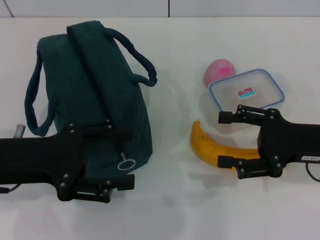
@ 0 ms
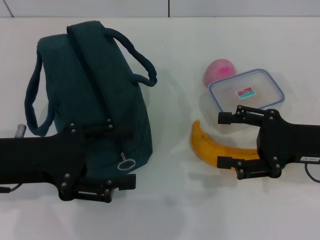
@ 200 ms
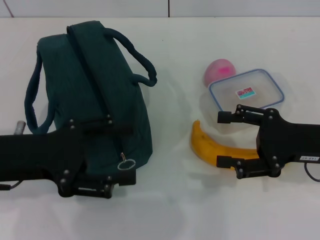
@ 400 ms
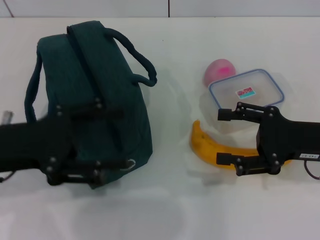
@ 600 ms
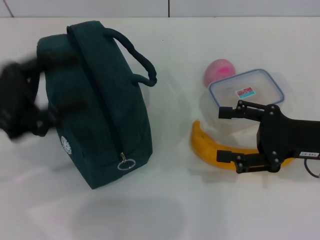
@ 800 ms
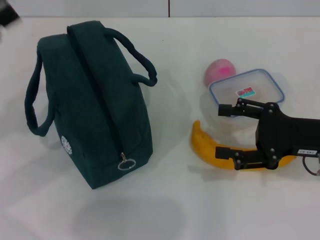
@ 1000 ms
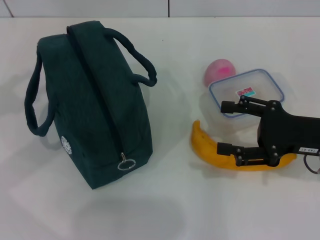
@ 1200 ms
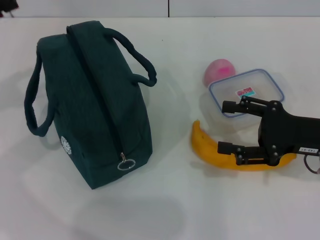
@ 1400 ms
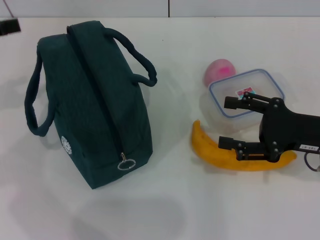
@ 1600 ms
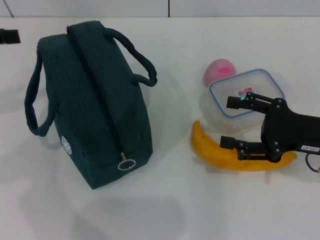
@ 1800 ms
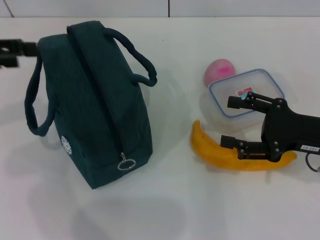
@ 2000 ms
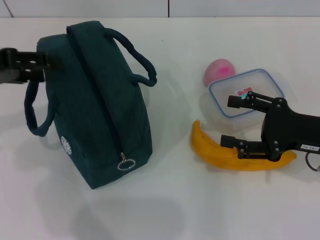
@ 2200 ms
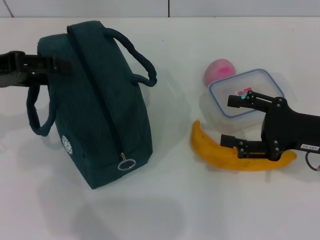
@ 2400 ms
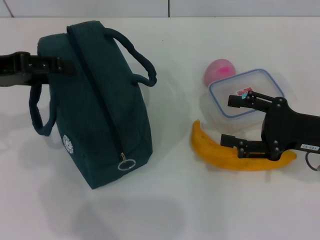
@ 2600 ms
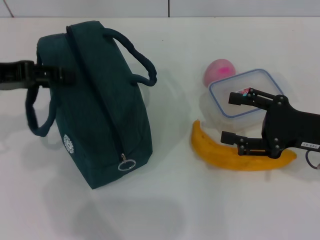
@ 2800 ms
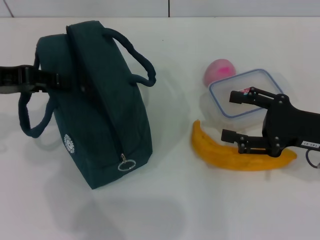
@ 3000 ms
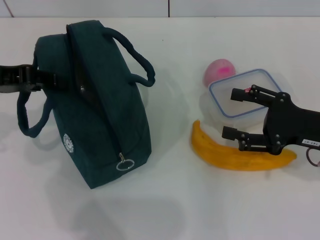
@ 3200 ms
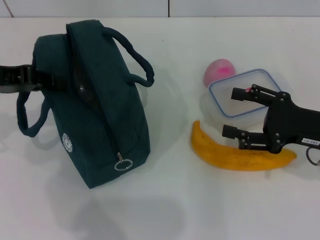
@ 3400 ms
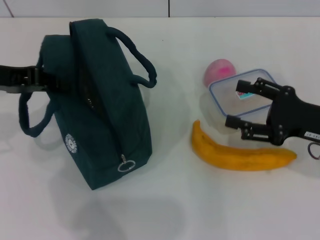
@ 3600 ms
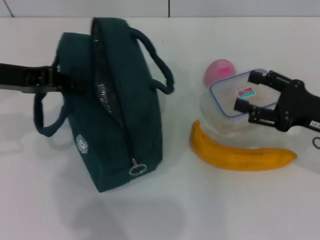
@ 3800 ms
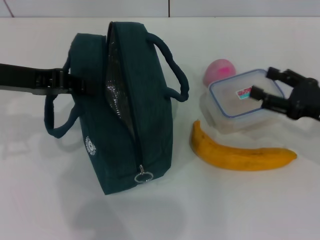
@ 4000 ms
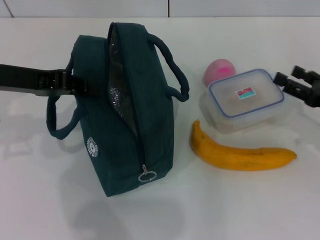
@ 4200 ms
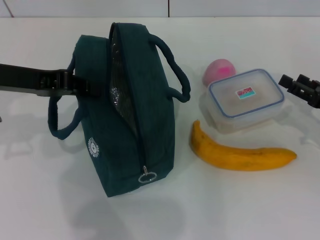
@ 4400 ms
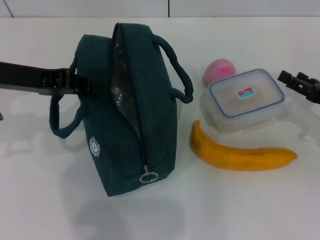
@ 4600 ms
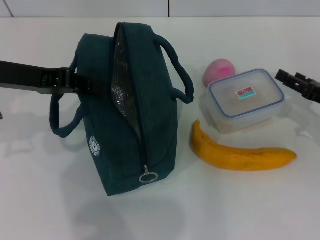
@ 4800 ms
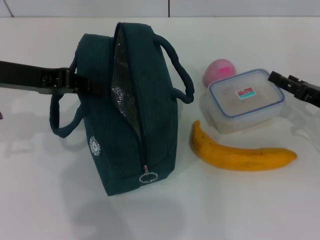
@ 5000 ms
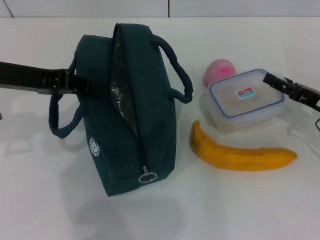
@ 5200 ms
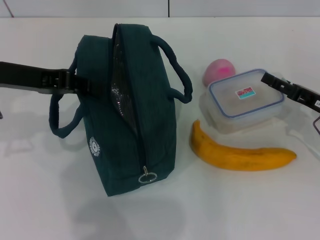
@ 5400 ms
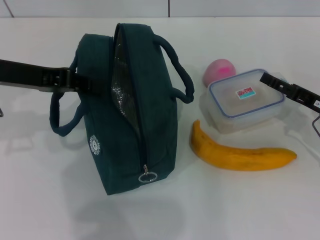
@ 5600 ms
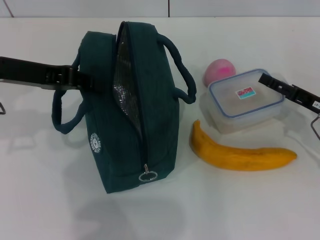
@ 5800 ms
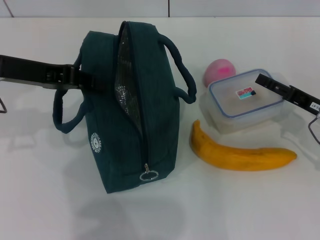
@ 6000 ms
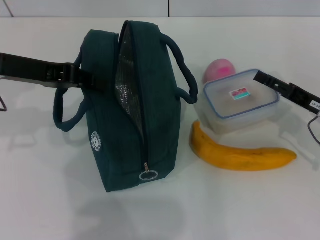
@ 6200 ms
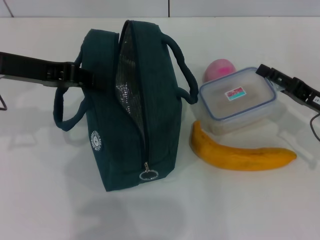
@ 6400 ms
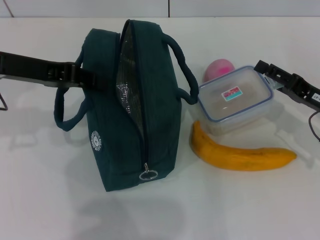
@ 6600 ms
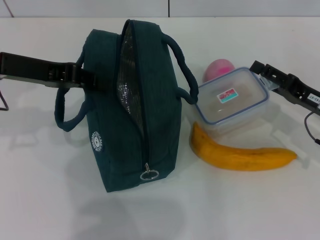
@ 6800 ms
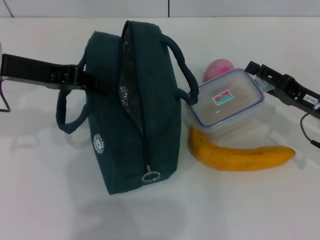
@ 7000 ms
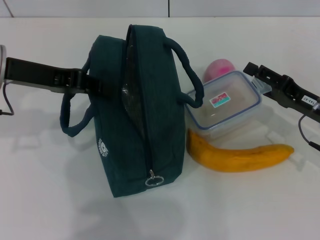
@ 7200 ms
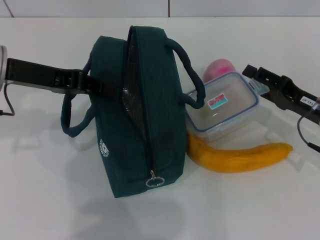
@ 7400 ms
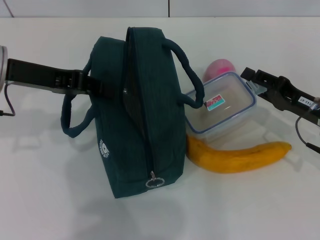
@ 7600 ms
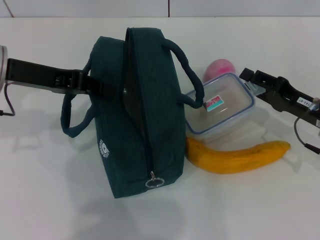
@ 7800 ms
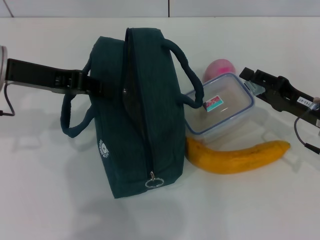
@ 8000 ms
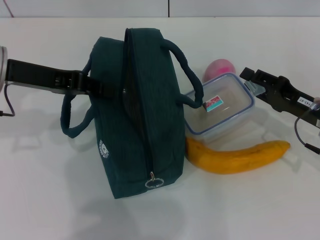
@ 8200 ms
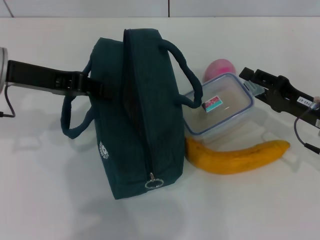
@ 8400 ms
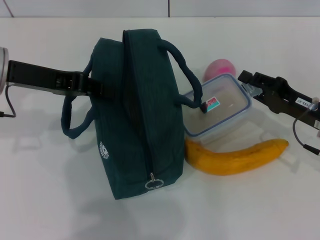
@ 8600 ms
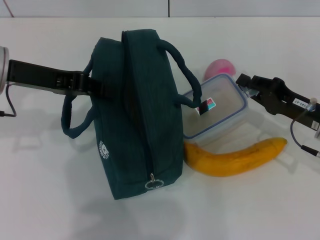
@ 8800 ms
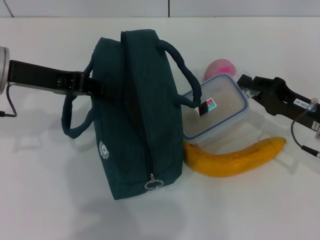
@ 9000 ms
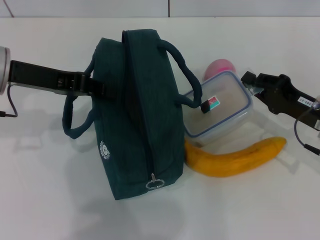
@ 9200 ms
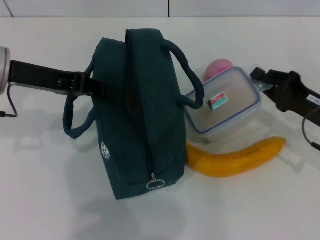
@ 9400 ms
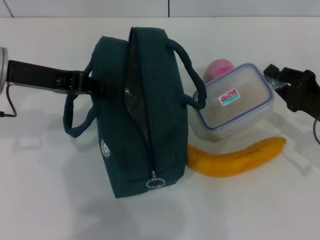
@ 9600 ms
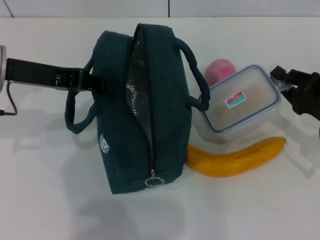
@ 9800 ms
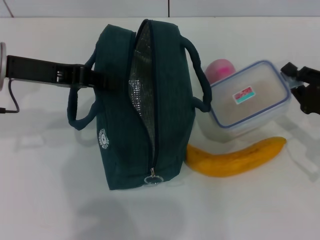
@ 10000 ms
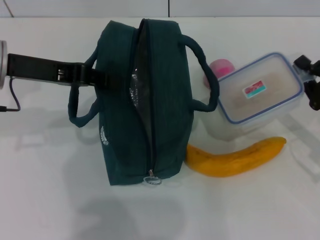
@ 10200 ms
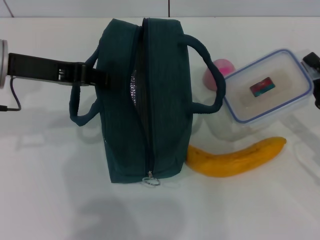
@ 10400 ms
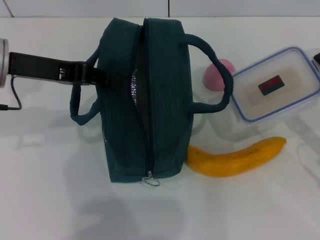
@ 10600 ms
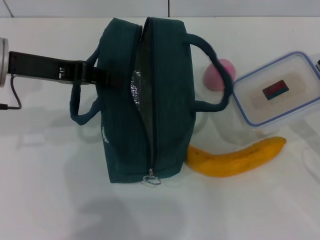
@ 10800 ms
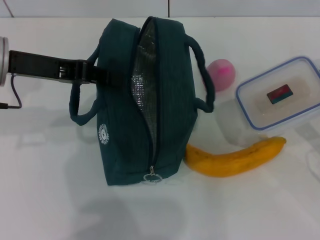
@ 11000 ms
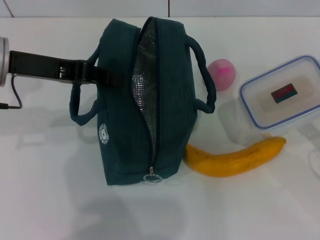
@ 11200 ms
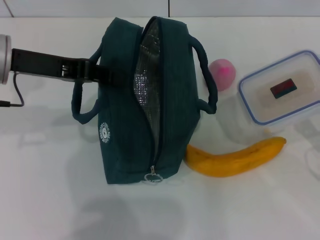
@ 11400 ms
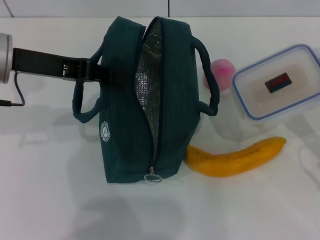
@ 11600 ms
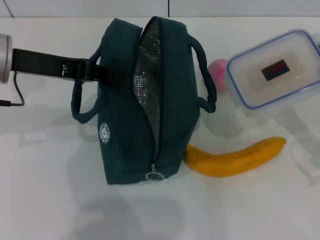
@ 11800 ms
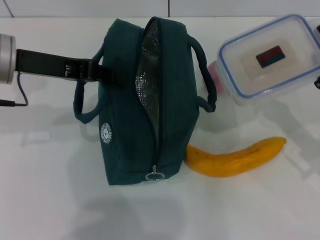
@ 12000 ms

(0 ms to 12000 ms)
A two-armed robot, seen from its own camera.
Step, 0 ms - 4400 ms: Hold the lunch bag with your left hand.
Step, 4600 ms - 9000 ms: Pick up the lunch box with your right hand.
0 ms - 1600 ms: The left gripper is displaced to the left, upward and forward by some 15 cm.
1600 ms - 3000 ms: The left gripper heads to the right, covering about 5 cm.
3000 ms - 4400 ms: The left gripper closes; the right gripper is displaced to the right by about 5 cm.
4400 ms - 6000 ms: The grippers stay close to where they were, moving slightly.
7600 ms - 9000 ms: The right gripper closes up.
9000 ms - 10400 ms: The right gripper travels to the right by about 5 cm.
10400 ms - 12000 ms: The grippers move only a little.

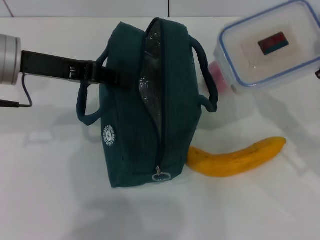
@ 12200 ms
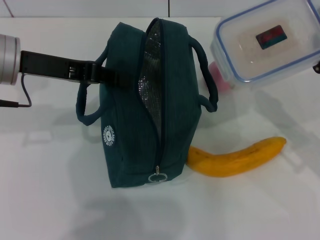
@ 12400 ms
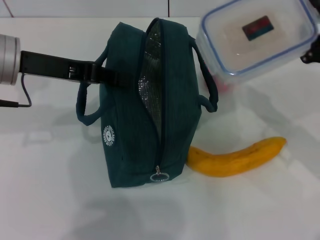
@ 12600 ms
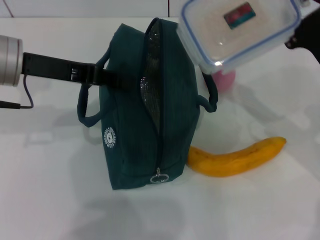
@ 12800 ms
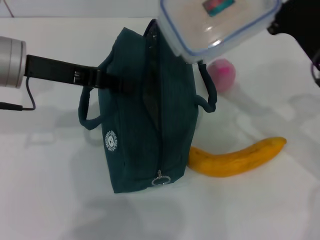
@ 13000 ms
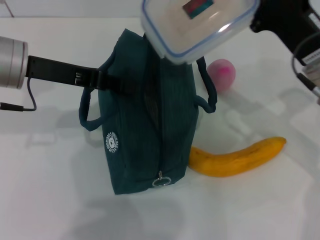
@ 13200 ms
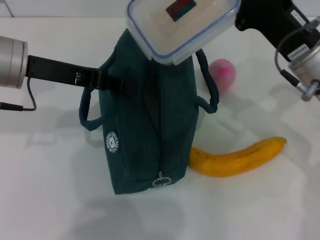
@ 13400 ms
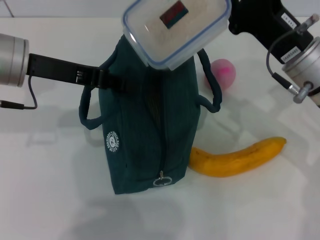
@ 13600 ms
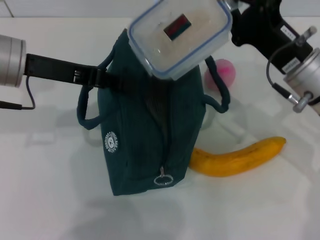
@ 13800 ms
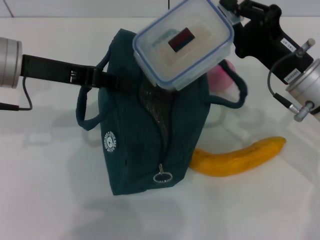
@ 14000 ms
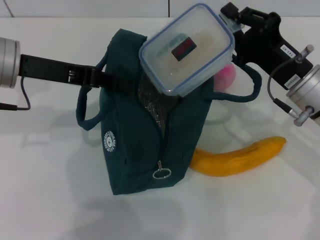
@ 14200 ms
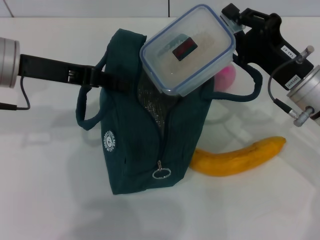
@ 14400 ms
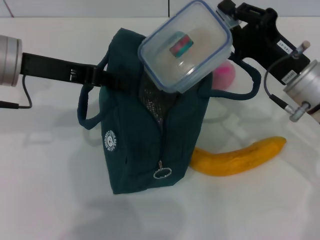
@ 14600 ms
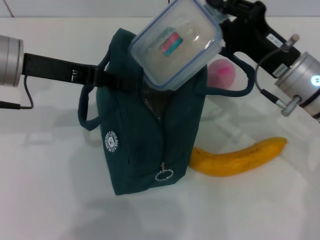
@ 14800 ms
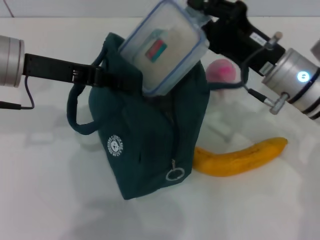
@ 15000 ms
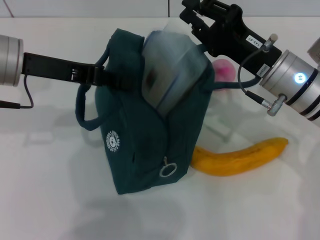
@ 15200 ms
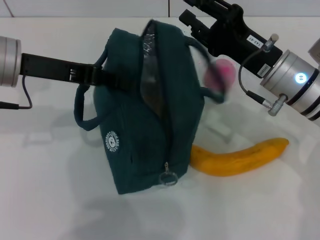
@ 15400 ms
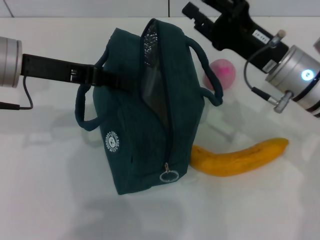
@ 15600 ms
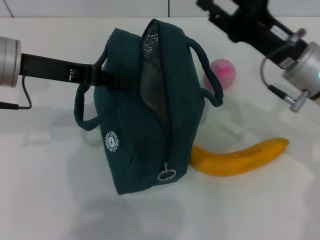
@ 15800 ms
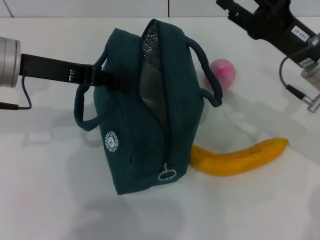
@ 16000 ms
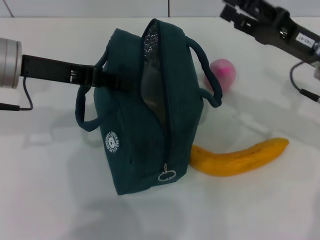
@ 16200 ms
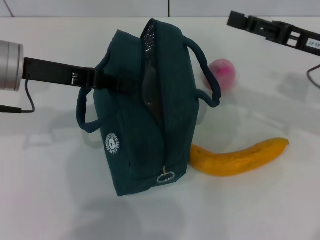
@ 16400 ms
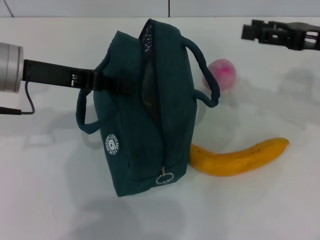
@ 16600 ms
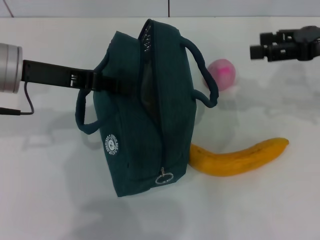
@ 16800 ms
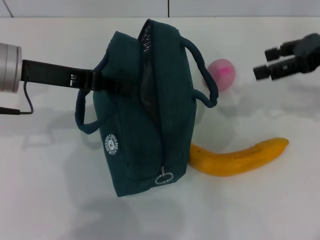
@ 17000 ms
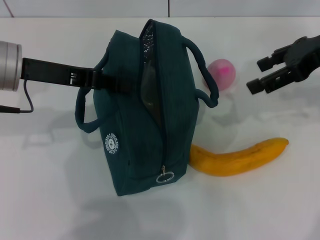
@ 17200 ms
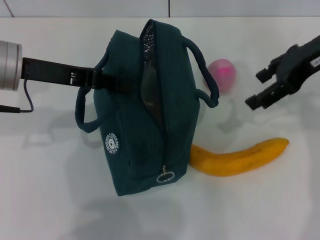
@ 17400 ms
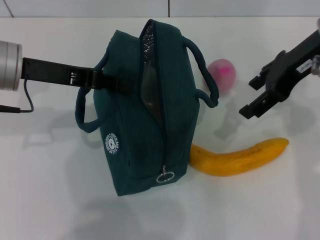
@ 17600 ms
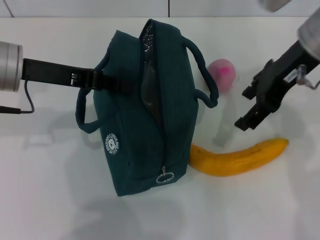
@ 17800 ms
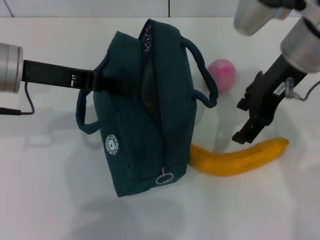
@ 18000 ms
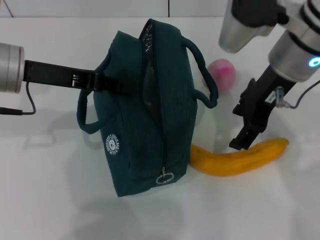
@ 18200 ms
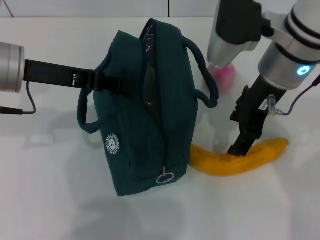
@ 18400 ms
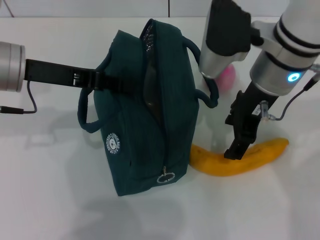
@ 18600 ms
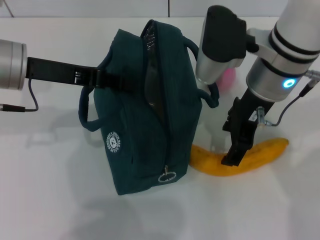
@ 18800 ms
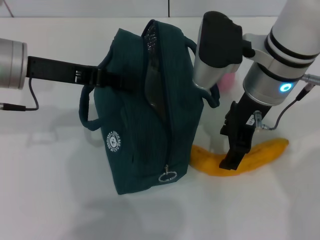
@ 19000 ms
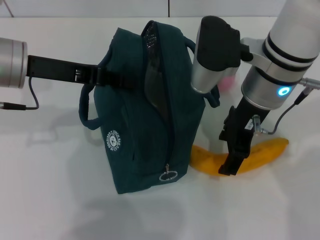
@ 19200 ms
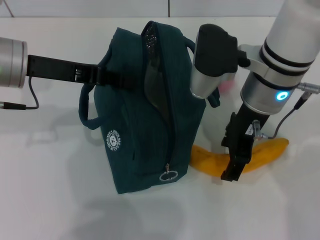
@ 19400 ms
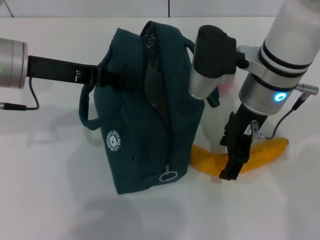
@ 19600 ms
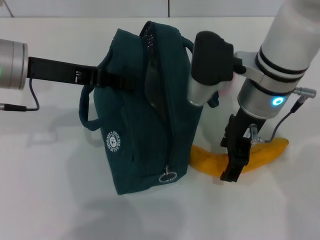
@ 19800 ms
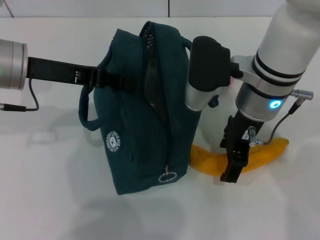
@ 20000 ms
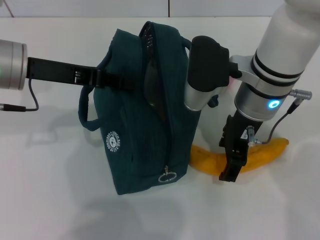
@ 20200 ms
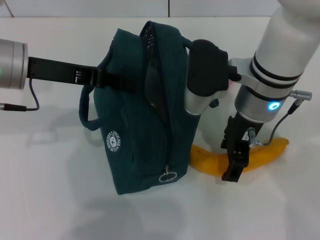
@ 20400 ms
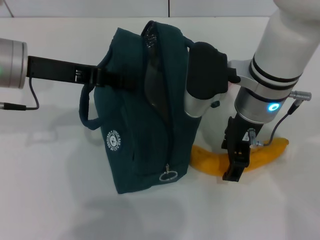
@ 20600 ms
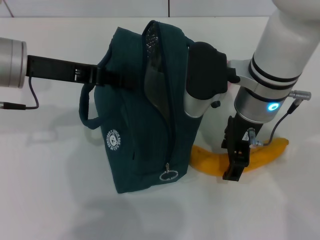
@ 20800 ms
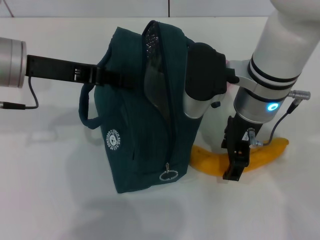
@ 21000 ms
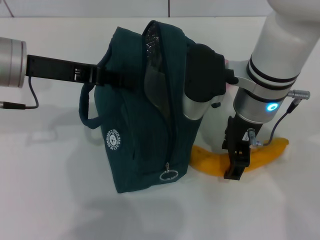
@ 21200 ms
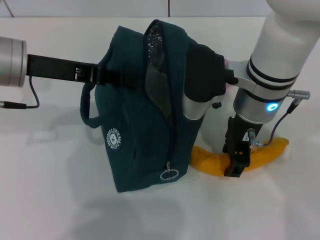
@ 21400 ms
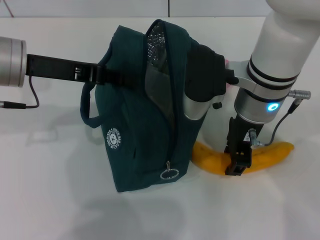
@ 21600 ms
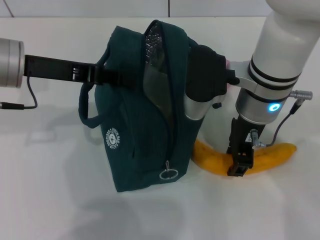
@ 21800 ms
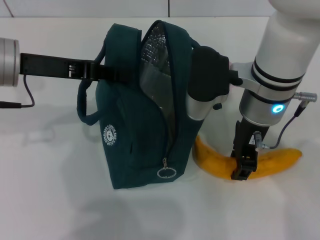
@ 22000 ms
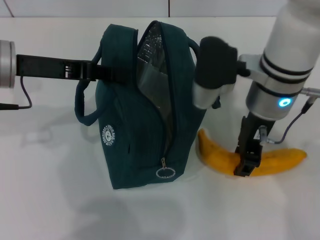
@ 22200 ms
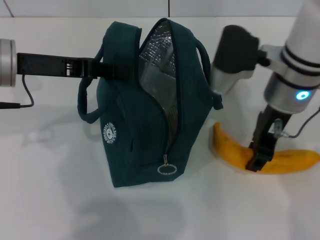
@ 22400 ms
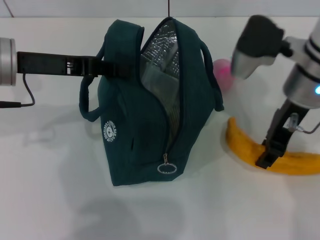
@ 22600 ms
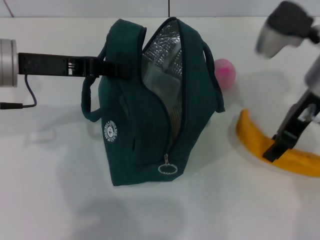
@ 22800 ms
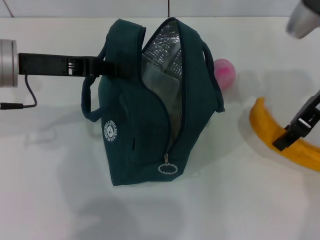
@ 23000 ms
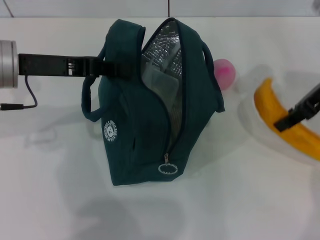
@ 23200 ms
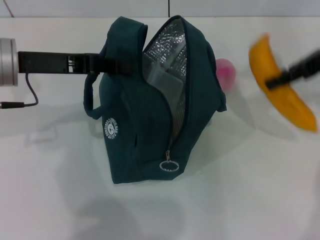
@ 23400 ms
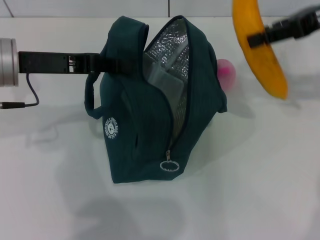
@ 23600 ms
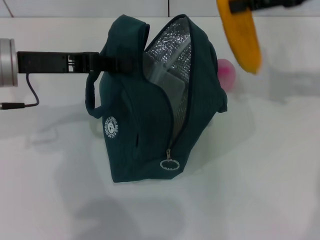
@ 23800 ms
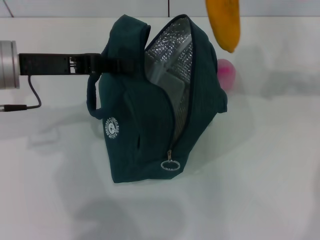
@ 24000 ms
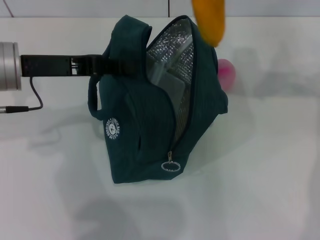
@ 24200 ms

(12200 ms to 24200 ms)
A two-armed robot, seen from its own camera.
Step, 12200 ms - 15400 ms: Place the lunch box into the lunch bag with your right hand.
Step, 15800 ms - 21800 ms: Take the banana with your right hand.
12200 ms - 13800 ms: The right gripper travels to the left and forward by some 10 cm.
15200 ms - 16600 ms: The right gripper goes some 15 cm to the right and upward, and opens.
16600 ms - 18200 ms: The right gripper goes about 15 cm to the left.
18200 ms - 19800 ms: The right gripper heads downward, covering roughly 5 cm.
19800 ms - 21200 ms: The grippers stay close to where they were, moving slightly.
21200 ms - 22600 ms: The right gripper heads to the right, covering some 5 cm, and closes up.
22600 ms - 24200 ms: The right gripper heads upward and to the right, covering some 15 cm.
